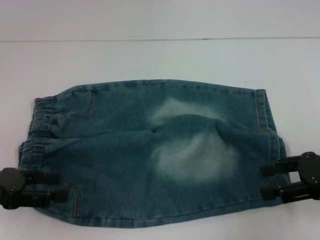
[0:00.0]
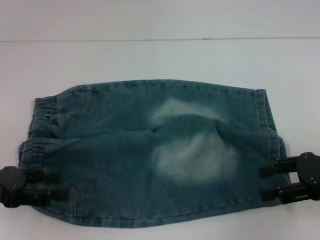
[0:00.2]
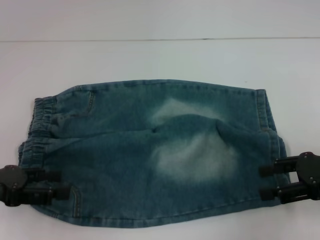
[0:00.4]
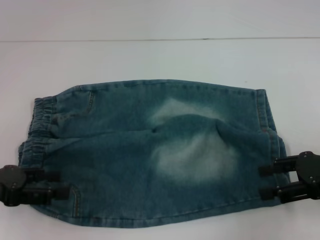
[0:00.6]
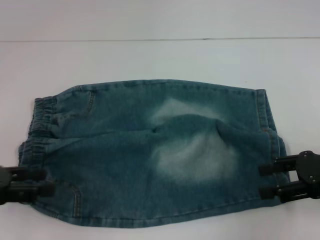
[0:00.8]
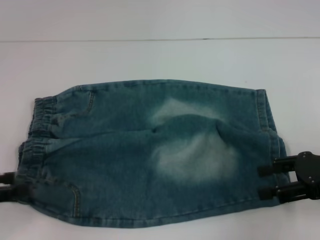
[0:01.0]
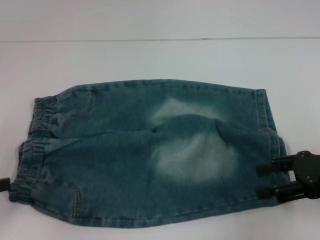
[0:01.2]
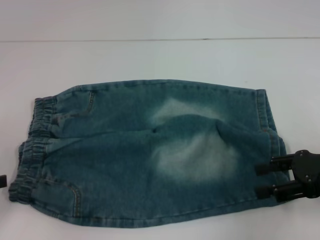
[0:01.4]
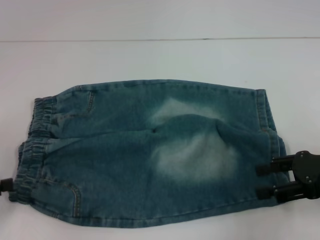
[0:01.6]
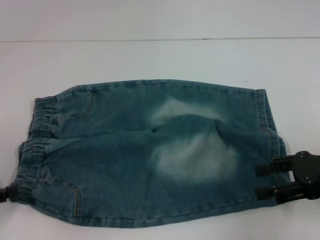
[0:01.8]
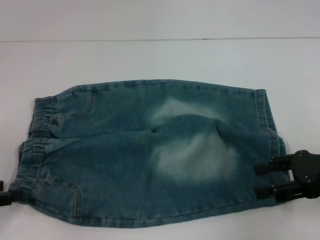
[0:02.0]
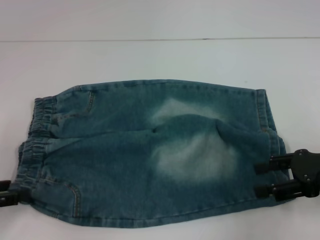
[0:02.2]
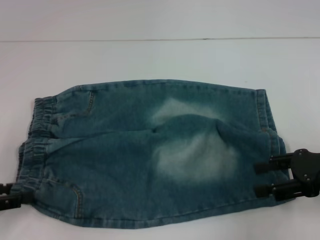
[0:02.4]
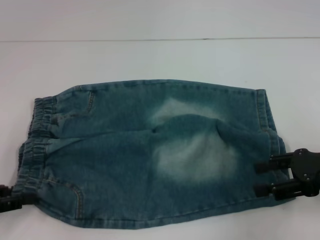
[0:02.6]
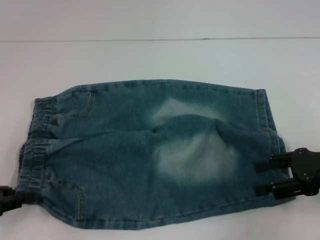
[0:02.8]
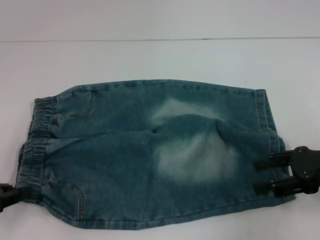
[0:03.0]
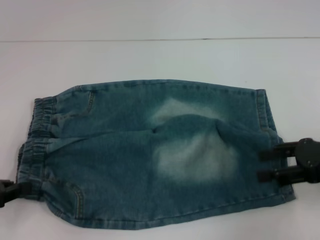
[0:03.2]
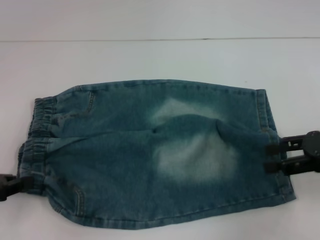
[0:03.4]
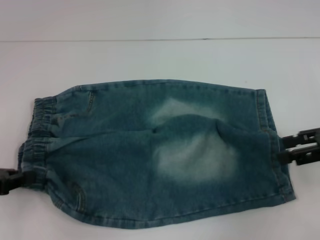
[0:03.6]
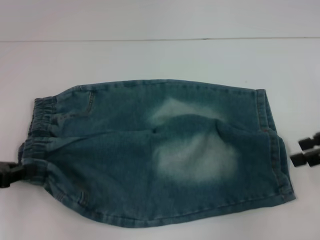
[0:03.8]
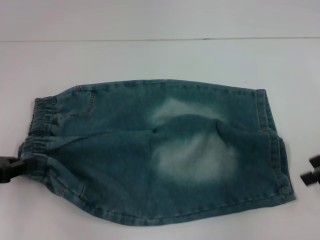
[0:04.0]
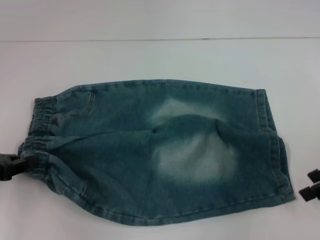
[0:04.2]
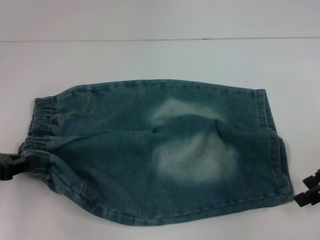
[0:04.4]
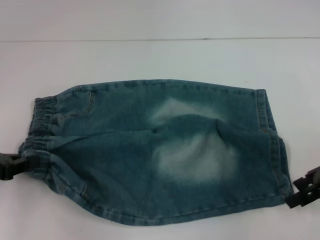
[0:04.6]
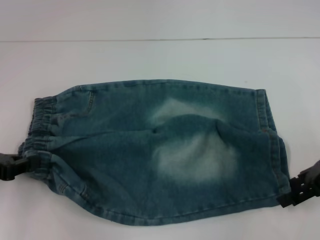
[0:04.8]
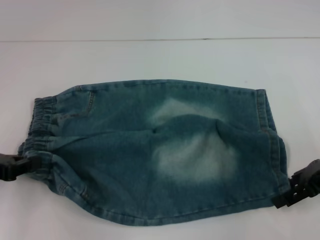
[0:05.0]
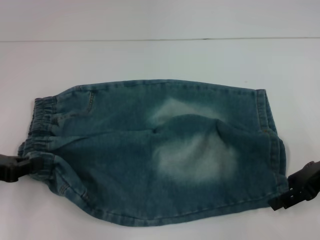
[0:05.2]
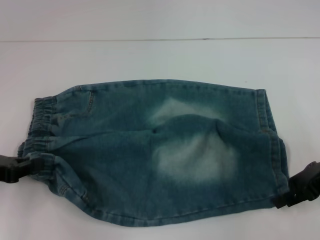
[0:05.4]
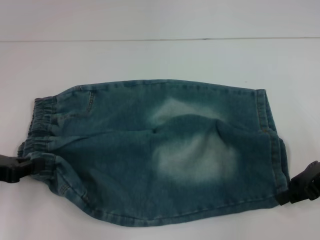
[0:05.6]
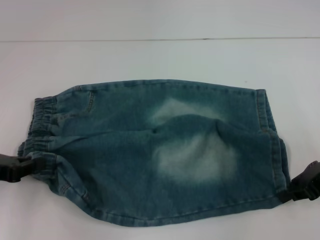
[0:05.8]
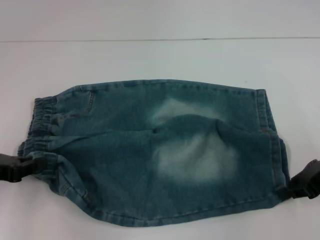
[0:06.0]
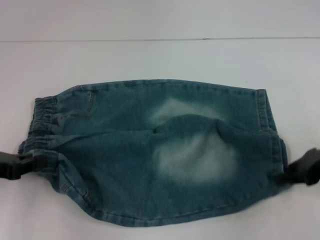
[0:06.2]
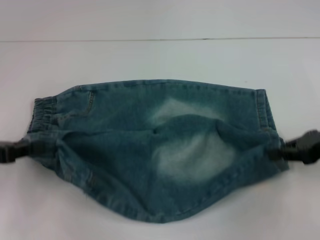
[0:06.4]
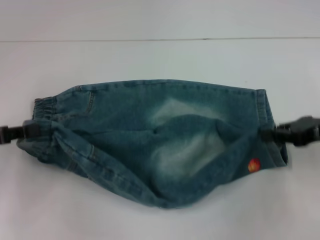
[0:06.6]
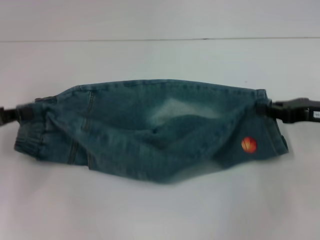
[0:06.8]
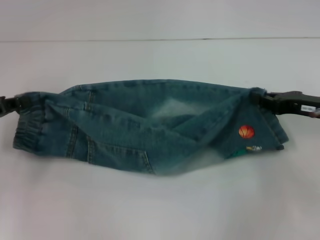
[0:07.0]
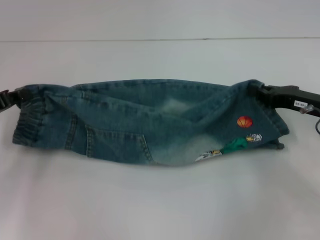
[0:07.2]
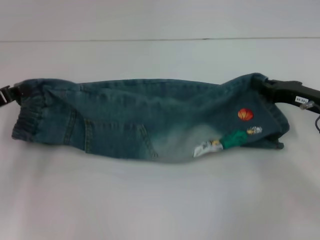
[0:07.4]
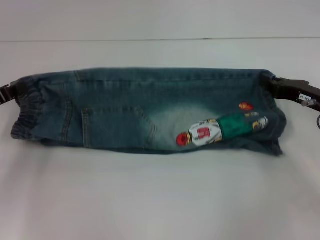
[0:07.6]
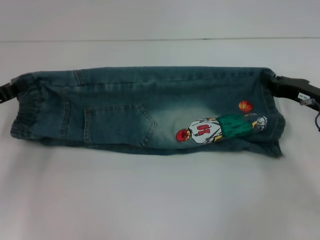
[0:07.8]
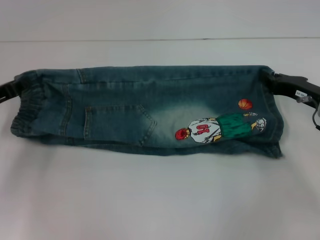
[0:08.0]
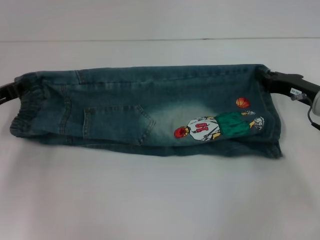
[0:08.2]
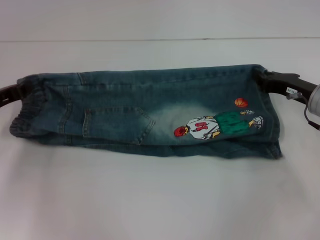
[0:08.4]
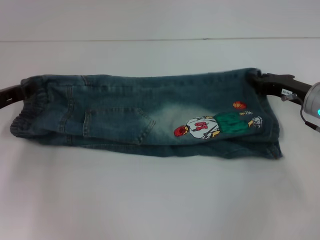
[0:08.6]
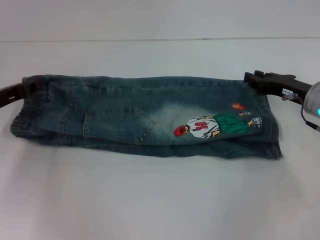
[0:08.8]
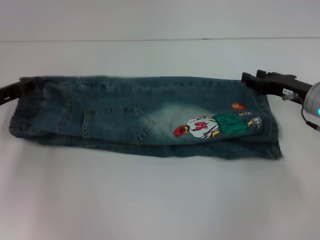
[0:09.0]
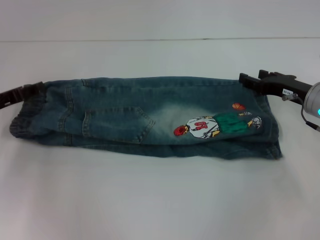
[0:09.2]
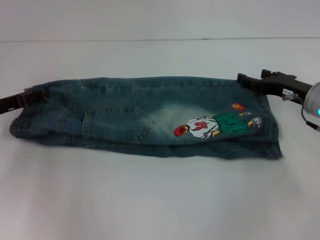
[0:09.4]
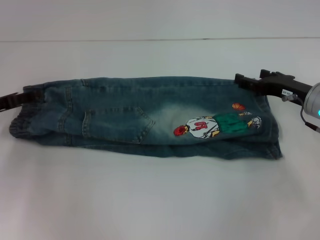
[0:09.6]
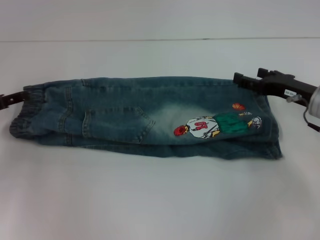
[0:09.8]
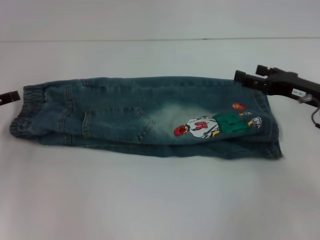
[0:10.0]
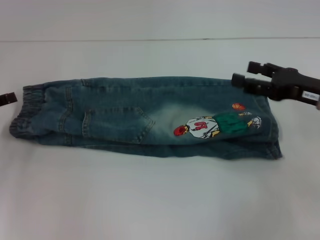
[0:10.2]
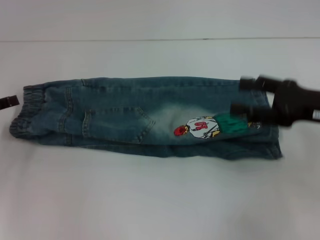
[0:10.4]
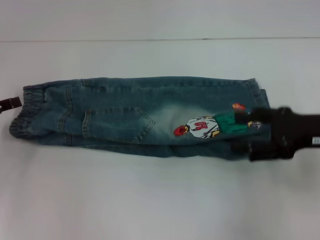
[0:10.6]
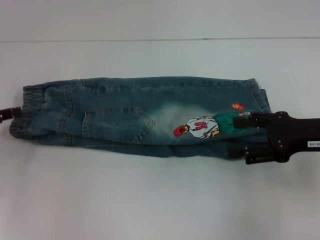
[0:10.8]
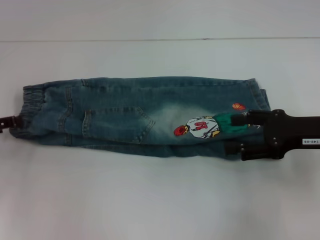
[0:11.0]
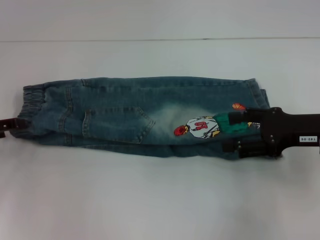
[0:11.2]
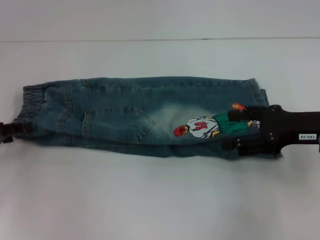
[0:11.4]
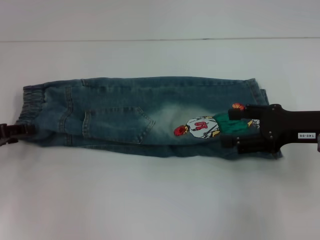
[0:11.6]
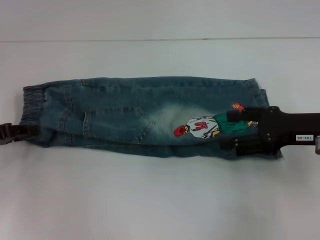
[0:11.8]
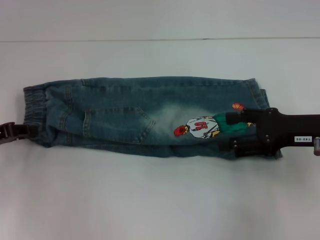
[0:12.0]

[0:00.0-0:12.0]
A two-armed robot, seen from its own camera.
Step, 0:00.0 to 0:02.8: Hold the lower left waistband with your left hand.
Step, 0:03.0 to 0:05.8: Grab the lower right pant leg with your right hand.
Step, 0:06.0 to 0:08.6: Fold upward with your right hand.
Step, 0:08.8 to 0:09.0: Fold upward with your left hand.
0:00.0 to 0:01.6: The left gripper shifts some 5 cm to the left.
0:01.6 to 0:03.0: The left gripper closes its fingers.
0:04.4 to 0:06.0: The right gripper closes.
0:06.0 to 0:07.6: The right gripper changes place by roughly 5 cm. Meanwhile the left gripper travels forward by roughly 5 cm.
0:07.6 to 0:09.0: There are only small adjustments of the grippers.
0:09.0 to 0:10.4: The left gripper shifts approximately 5 cm to the left, and opens. Meanwhile the right gripper travels upward and backward by approximately 10 cm, and opens.
0:10.4 to 0:12.0: The grippers stay close to where they were, moving slightly.

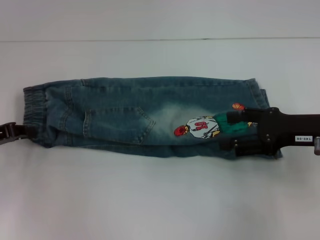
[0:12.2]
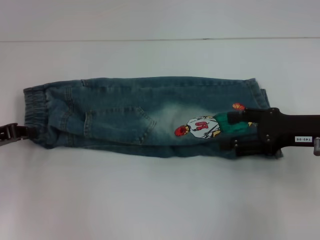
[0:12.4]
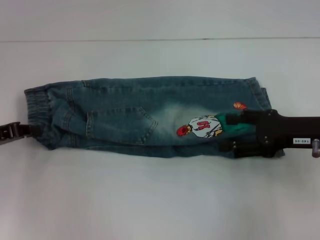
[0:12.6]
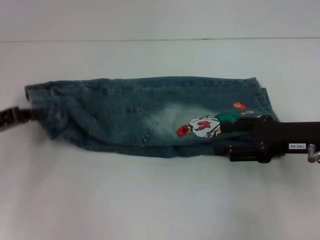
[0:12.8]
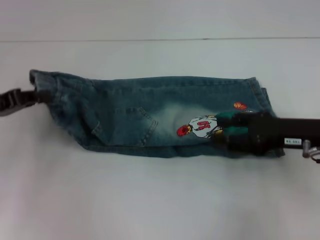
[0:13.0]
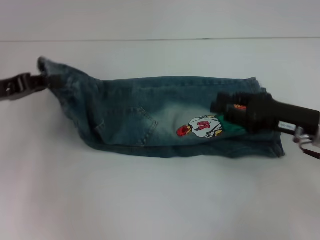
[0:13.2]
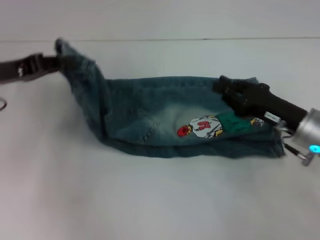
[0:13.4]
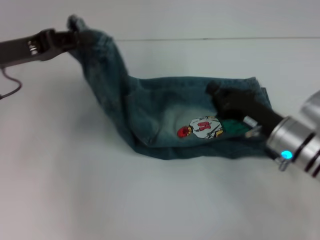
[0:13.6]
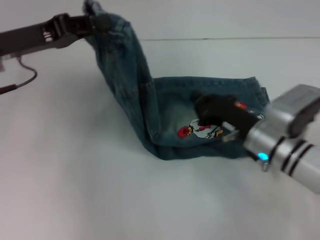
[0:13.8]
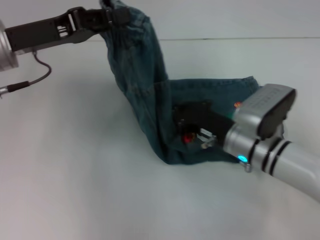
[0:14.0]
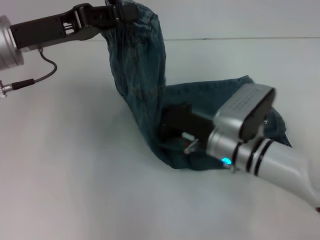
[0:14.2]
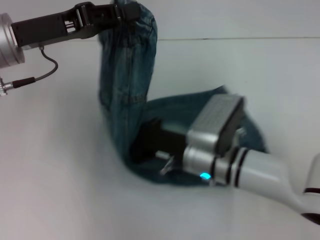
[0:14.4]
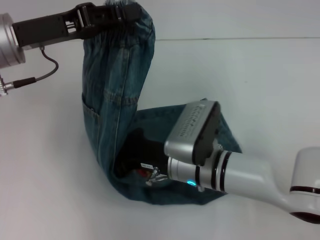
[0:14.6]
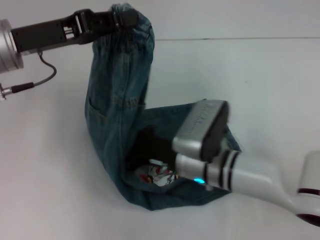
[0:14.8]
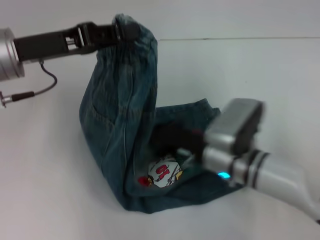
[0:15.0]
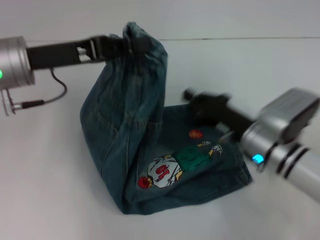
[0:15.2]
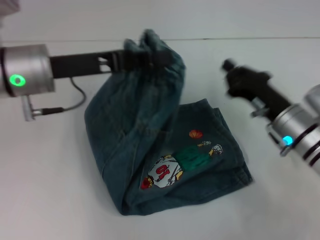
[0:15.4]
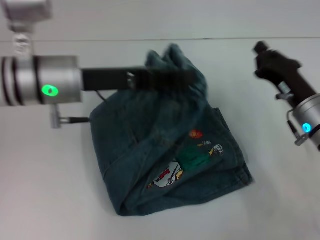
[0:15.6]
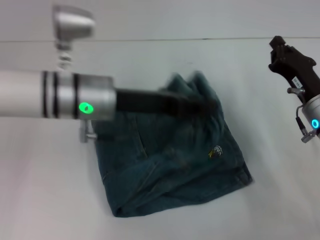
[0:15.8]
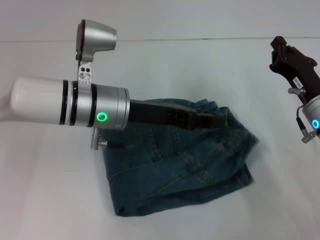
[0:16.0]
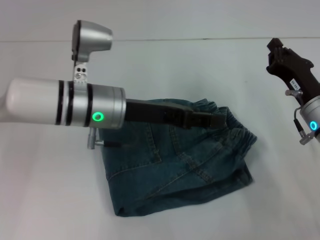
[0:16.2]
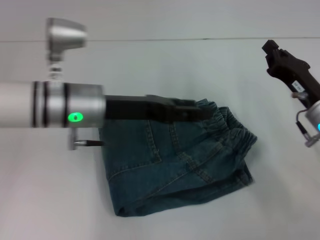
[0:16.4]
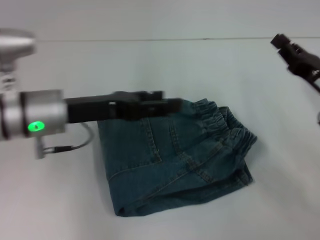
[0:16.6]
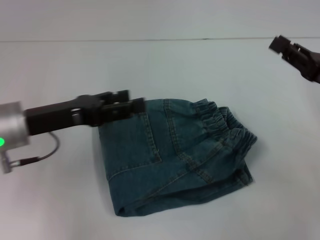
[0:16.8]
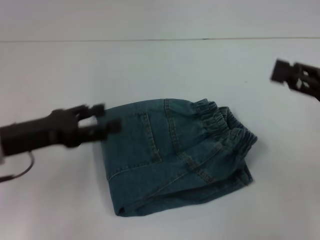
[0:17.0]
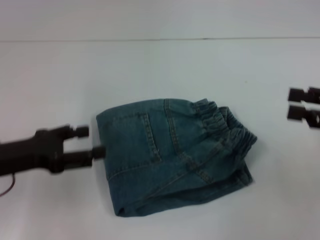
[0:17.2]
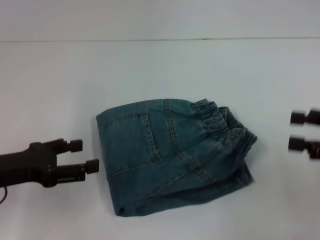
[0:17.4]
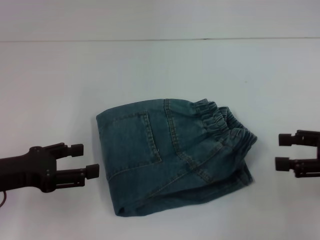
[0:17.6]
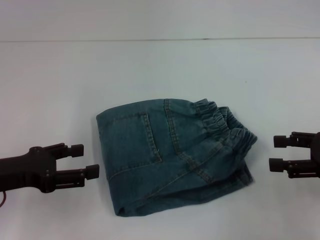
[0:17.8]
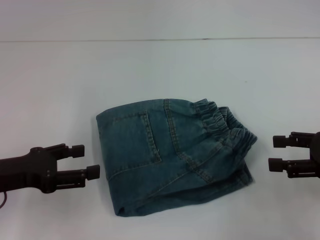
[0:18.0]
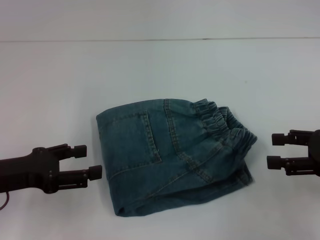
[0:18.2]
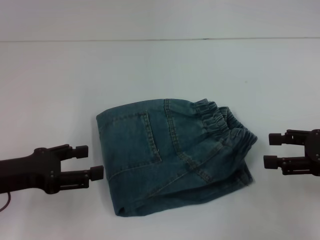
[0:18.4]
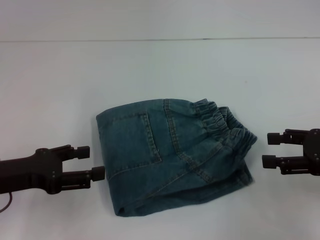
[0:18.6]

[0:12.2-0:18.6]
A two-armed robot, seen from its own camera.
Step, 0:12.6 to 0:14.8: Press the middle of the pants with your right hand.
Step, 0:15.0 to 0:16.0: Fold to the right with your left hand.
0:12.2 to 0:13.8: The right gripper goes roughly 15 cm to the left and downward, and closes its fingers. Meanwhile the left gripper moves upward and to the right, about 15 cm.
0:13.8 to 0:15.4: The right gripper goes to the left and returns, some 10 cm each way. The left gripper travels to the right by roughly 5 cm.
0:15.4 to 0:17.0: The right gripper heads to the right and upward, covering about 15 cm, and opens up. Meanwhile the left gripper moves backward, to the left and downward, about 10 cm, and opens.
0:17.0 to 0:18.6: The right gripper opens its fingers.

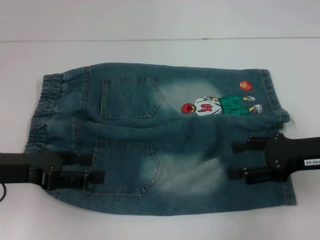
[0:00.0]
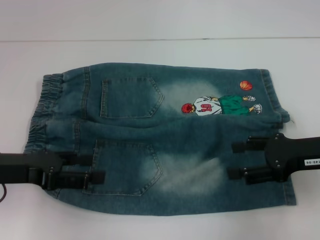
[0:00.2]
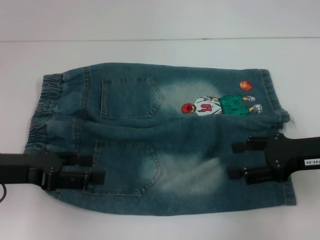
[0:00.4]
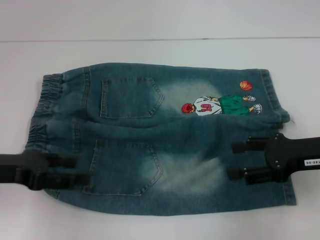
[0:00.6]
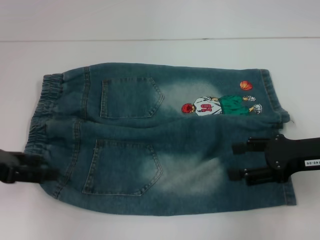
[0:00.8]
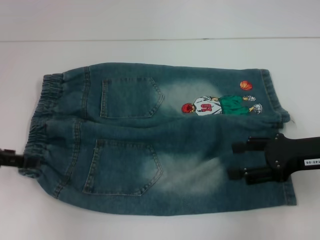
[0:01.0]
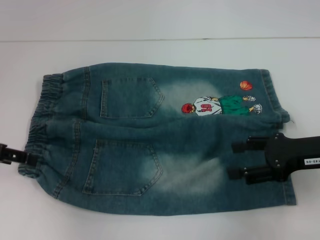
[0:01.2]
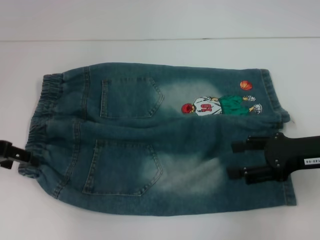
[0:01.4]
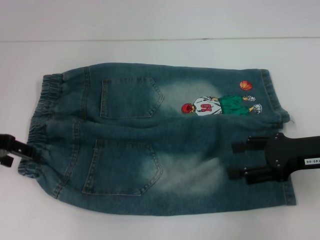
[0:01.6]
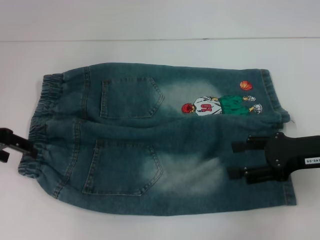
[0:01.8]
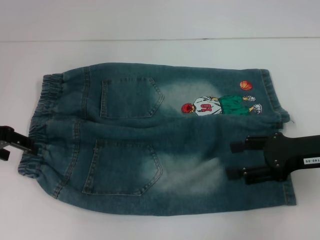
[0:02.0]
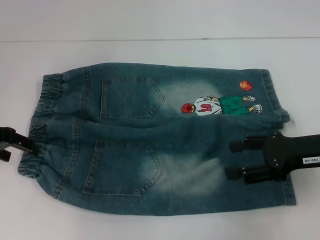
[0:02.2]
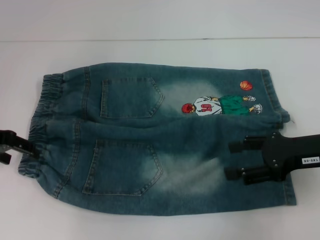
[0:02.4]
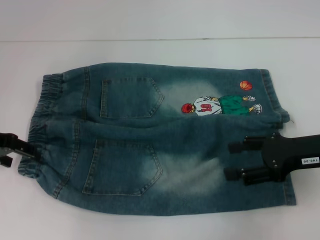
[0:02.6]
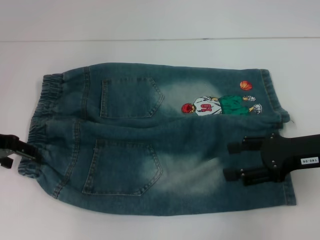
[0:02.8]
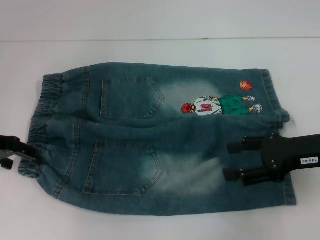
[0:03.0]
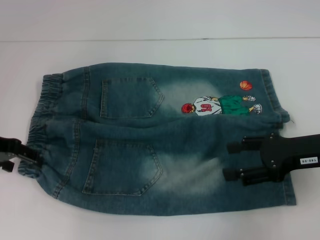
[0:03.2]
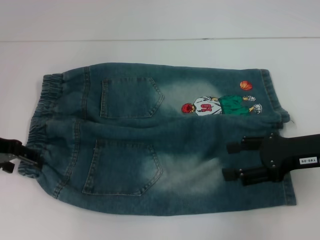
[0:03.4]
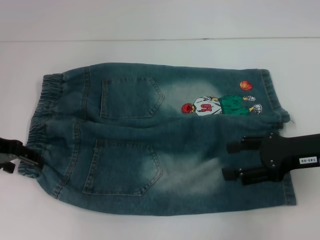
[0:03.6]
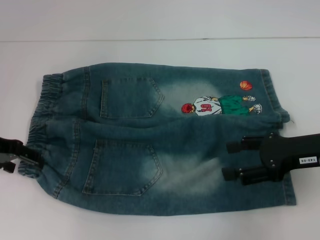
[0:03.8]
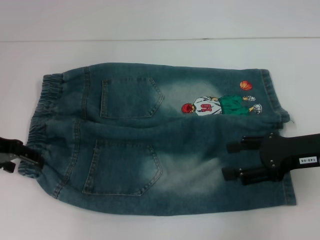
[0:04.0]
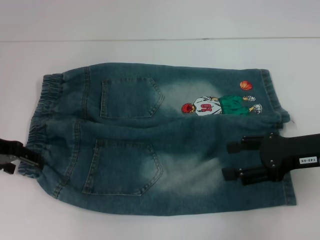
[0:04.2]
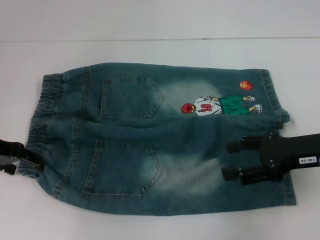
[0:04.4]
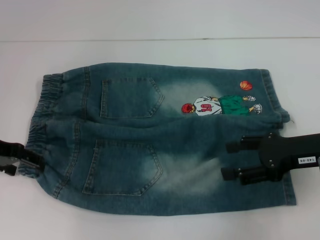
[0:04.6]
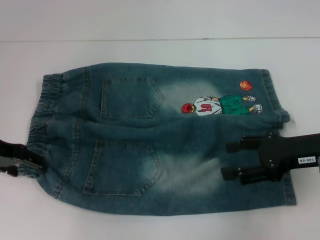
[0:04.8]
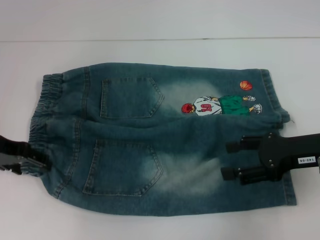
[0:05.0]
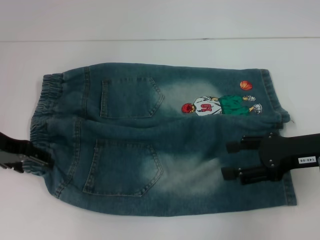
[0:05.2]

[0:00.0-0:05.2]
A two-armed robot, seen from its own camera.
0:00.0 to 0:01.8: The left gripper shifts some 10 cm forward.
0:01.8 to 0:03.4: There are only small adjustments of the grippers.
0:03.4 to 0:05.2: Neither gripper changes place.
